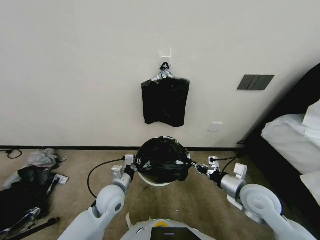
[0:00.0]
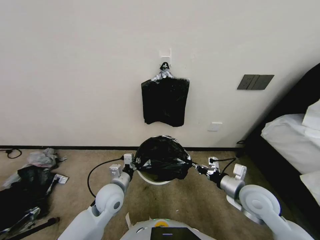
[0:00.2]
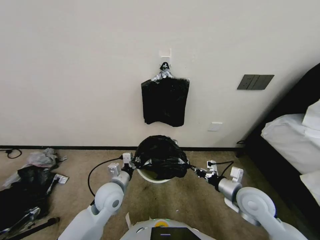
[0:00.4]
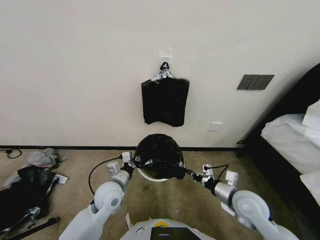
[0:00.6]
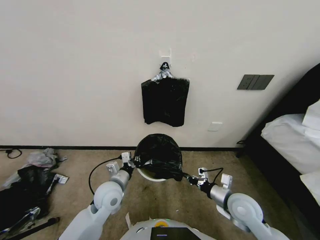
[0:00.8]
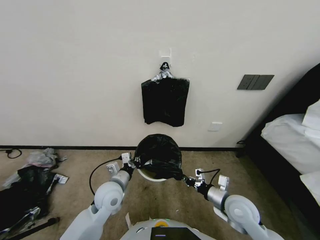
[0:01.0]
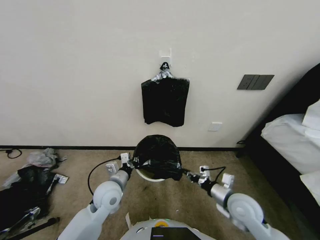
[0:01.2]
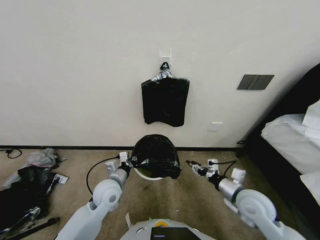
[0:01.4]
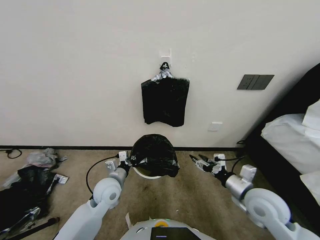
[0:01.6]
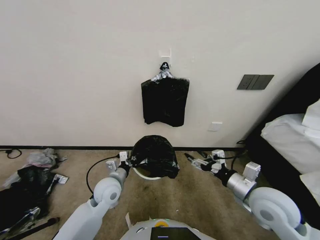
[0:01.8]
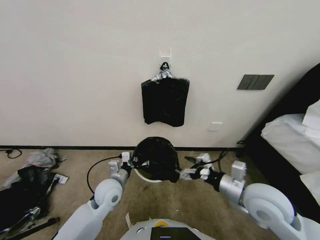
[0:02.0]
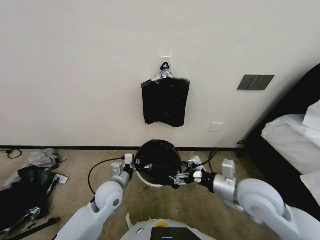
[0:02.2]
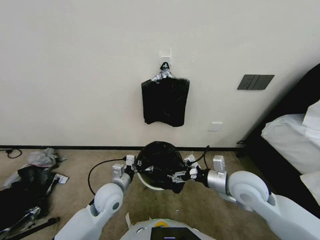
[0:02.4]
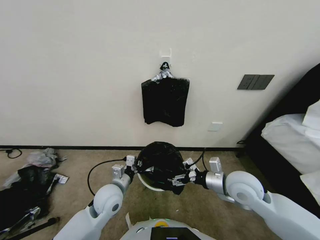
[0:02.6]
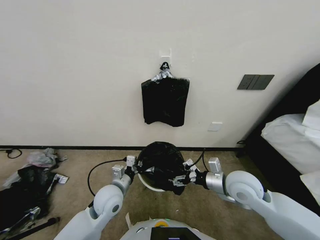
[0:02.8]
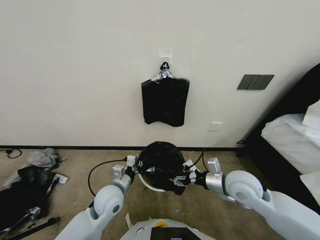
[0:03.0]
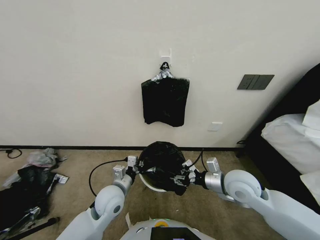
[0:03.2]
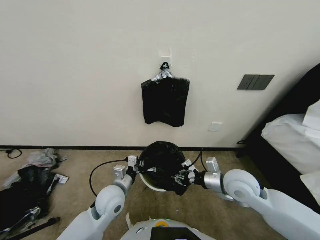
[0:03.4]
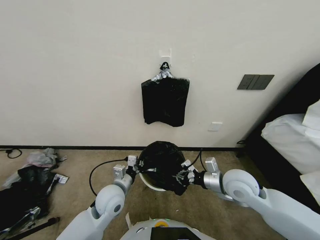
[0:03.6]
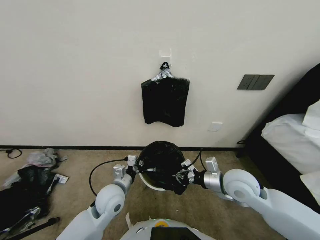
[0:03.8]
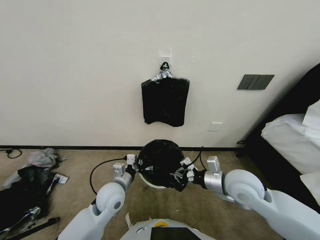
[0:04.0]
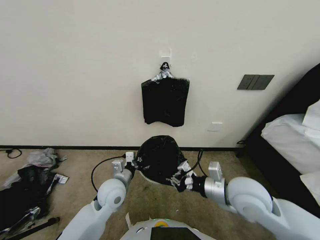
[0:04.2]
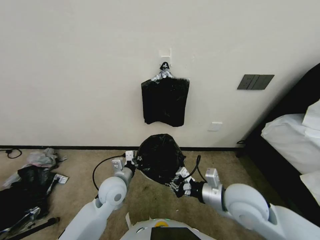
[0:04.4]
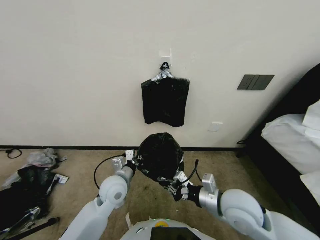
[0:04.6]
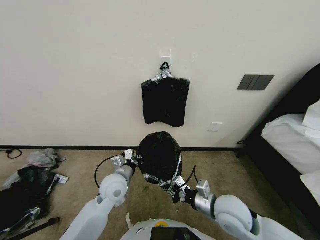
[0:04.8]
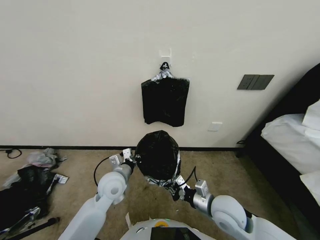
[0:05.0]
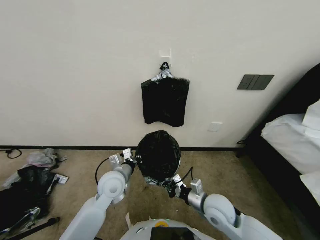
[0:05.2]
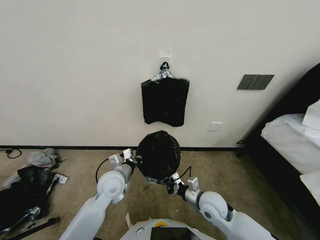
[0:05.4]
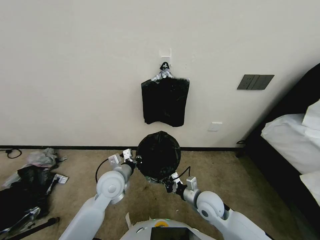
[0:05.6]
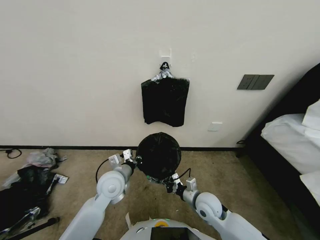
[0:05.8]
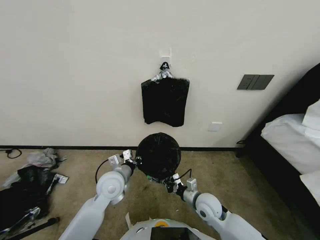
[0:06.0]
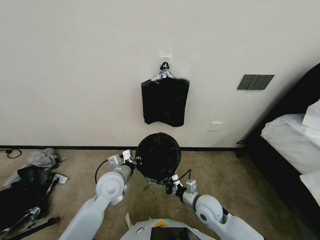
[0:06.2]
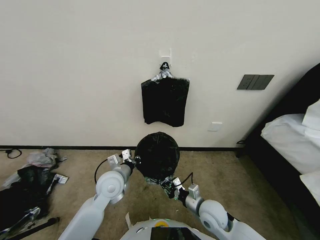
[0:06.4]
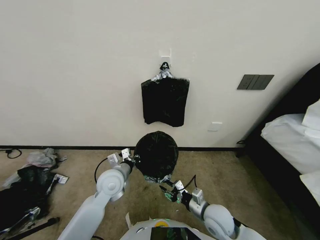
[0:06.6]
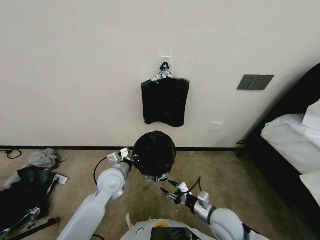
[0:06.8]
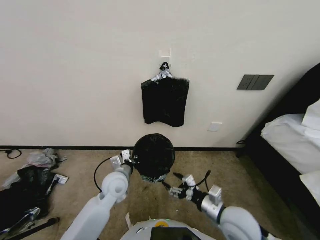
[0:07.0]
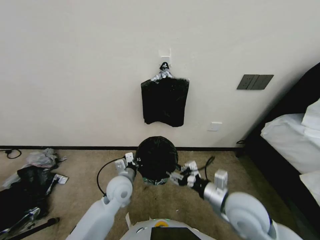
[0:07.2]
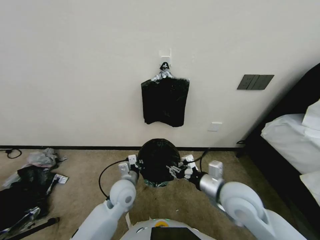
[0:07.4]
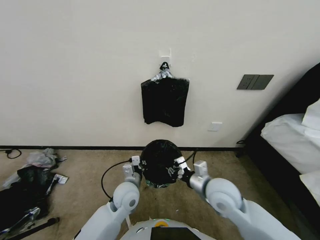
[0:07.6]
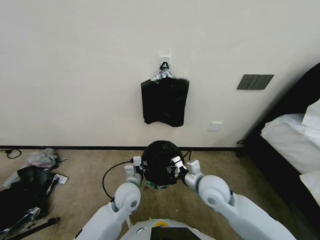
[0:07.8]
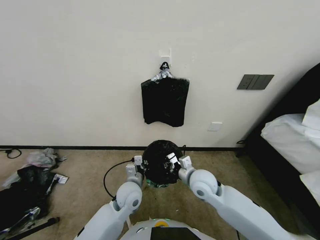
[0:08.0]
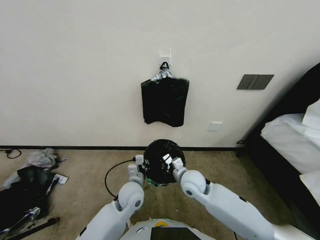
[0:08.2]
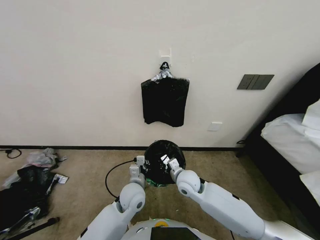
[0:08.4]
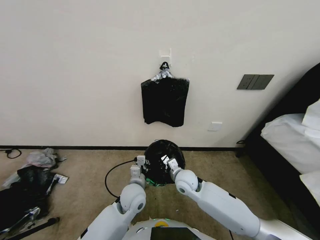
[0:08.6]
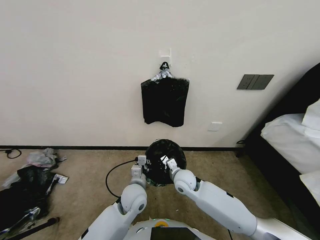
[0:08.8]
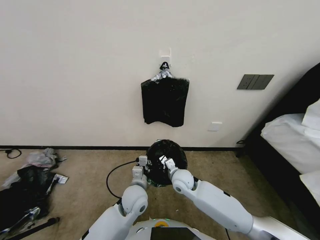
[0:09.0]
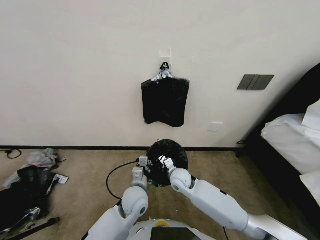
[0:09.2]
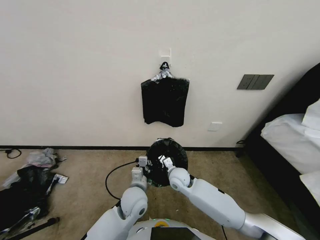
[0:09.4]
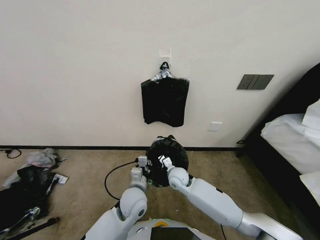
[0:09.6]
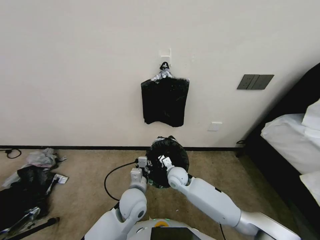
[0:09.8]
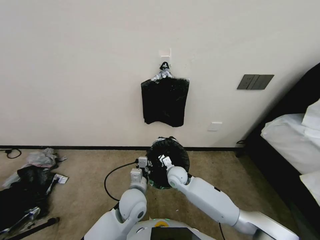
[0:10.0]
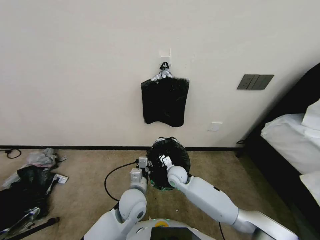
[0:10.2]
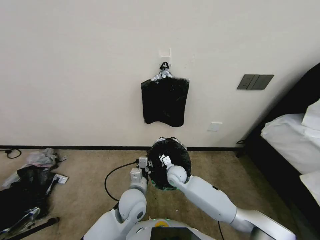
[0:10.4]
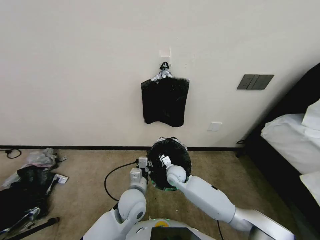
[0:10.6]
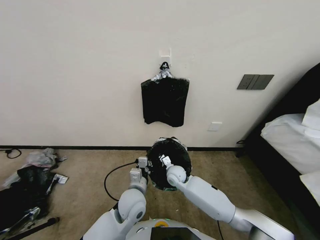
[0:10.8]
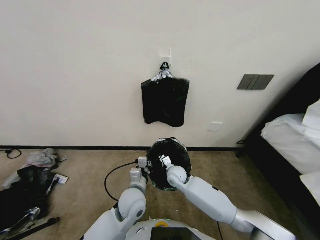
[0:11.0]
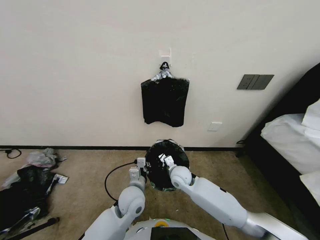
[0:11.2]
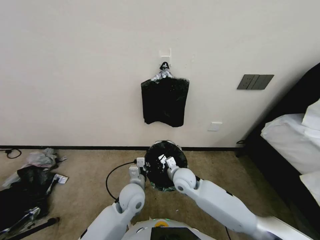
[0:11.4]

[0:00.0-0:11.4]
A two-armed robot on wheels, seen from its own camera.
Task of the whole recording: Place a trash bag onto the trash bin.
0:01.4 to 0:02.8: The right gripper shifts roughly 5 cm upward, and opens up.
0:02.8 to 0:04.2: The right gripper closes.
0:04.2 to 0:05.6: The right gripper moves downward, approximately 15 cm.
0:05.6 to 0:07.2: The right gripper shifts about 10 cm upward and backward, and opens.
0:07.2 to 0:08.6: The right gripper is displaced forward, to the left and downward by some 20 cm, and closes; the left gripper is displaced to the right by some 5 cm.
0:08.6 to 0:10.0: The right gripper changes place by about 5 cm.
0:10.0 to 0:11.4: The grippers stay close to where they were, moving slightly.

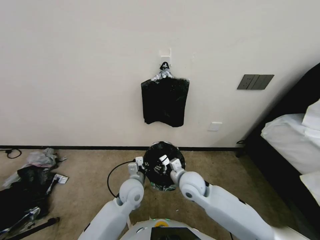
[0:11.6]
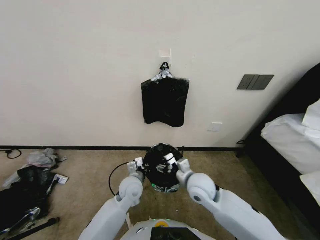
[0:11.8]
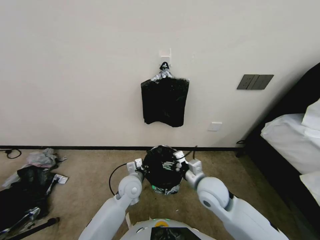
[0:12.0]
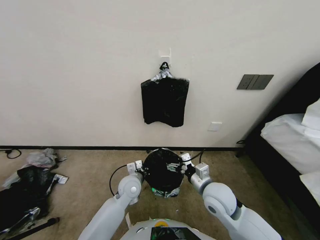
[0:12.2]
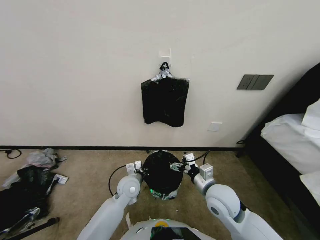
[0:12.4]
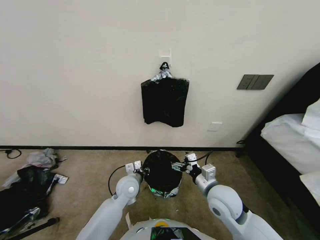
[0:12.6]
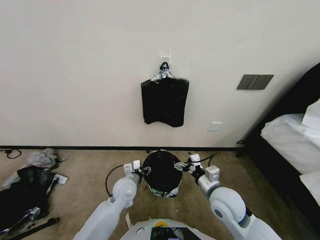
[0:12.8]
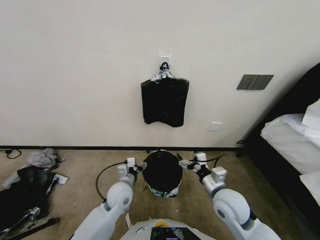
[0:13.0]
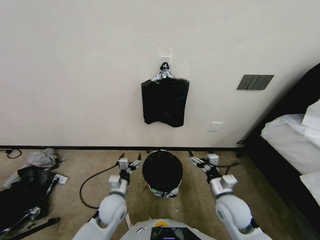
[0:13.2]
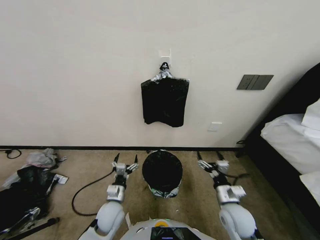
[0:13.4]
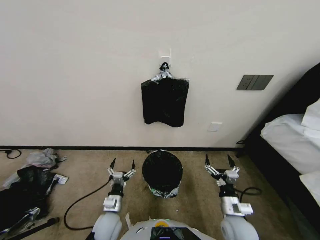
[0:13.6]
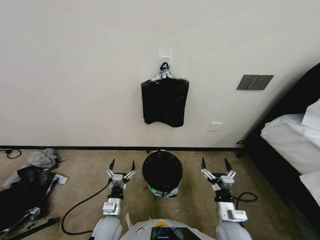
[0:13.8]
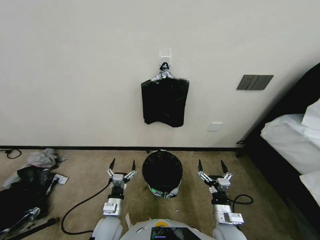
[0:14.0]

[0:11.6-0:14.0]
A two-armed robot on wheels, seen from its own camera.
Task of the whole recording: Place a trash bag onto the trash bin.
0:11.6 to 0:12.8: The left gripper opens, while the right gripper goes some 10 cm to the right and backward, and opens.
0:12.8 to 0:14.0: The left gripper heads backward, downward and to the left, covering approximately 15 cm, and opens. Meanwhile the right gripper is displaced downward and backward by roughly 15 cm.

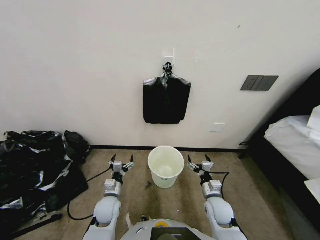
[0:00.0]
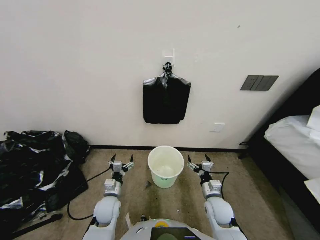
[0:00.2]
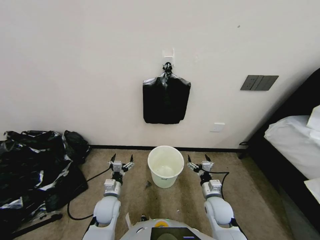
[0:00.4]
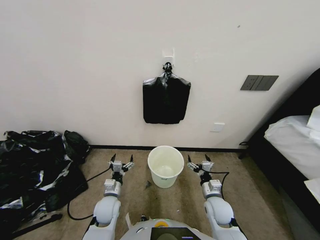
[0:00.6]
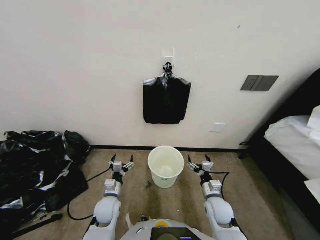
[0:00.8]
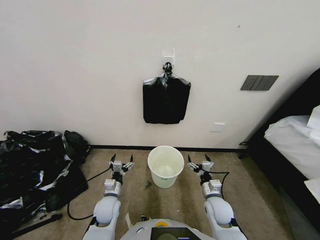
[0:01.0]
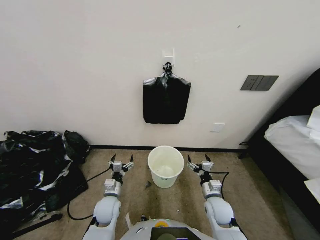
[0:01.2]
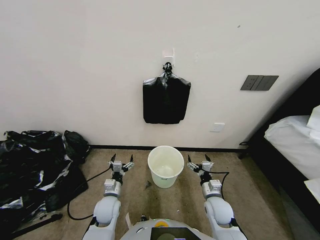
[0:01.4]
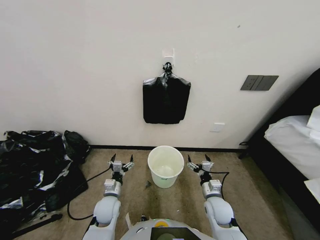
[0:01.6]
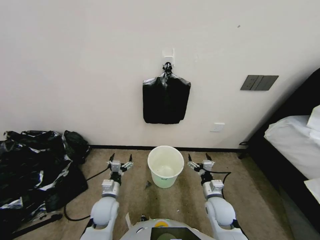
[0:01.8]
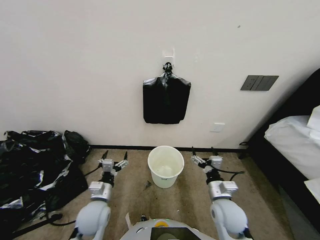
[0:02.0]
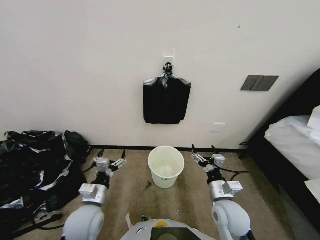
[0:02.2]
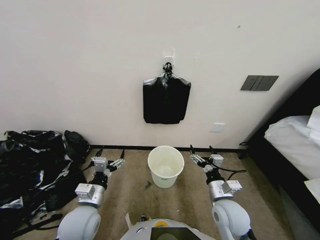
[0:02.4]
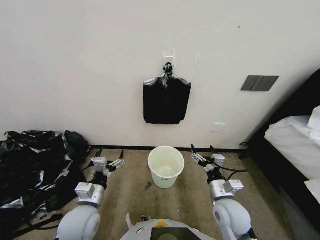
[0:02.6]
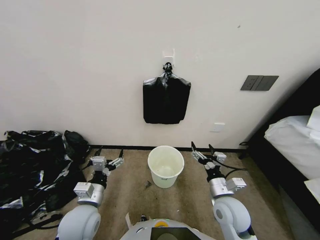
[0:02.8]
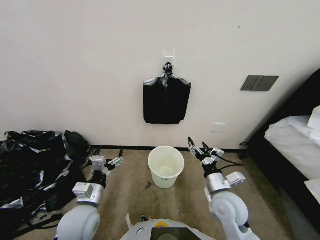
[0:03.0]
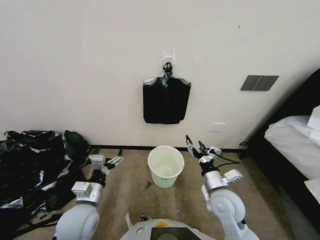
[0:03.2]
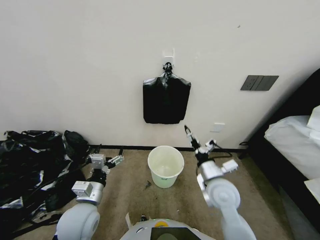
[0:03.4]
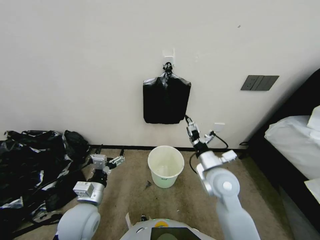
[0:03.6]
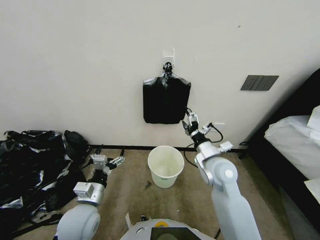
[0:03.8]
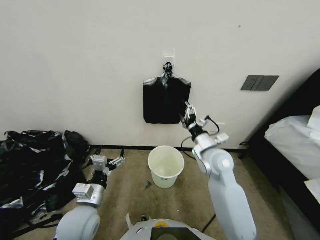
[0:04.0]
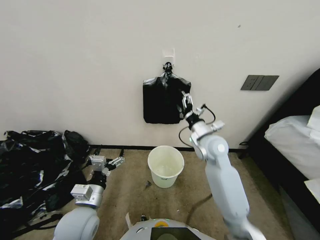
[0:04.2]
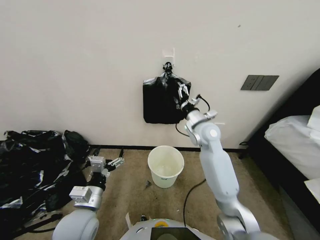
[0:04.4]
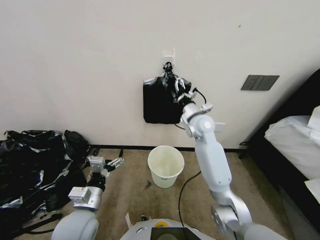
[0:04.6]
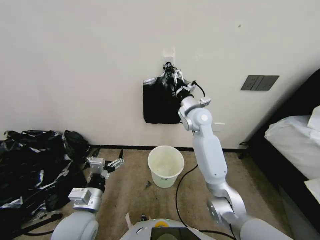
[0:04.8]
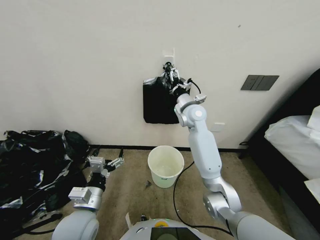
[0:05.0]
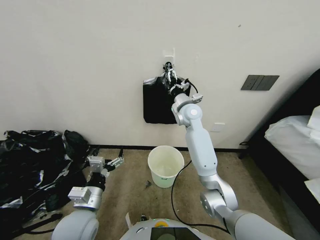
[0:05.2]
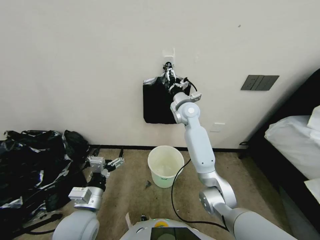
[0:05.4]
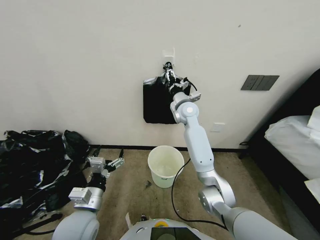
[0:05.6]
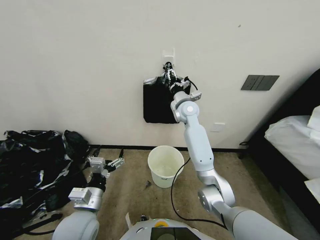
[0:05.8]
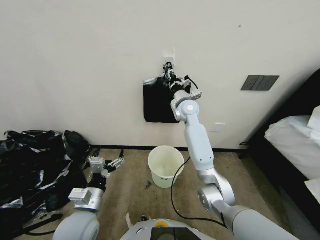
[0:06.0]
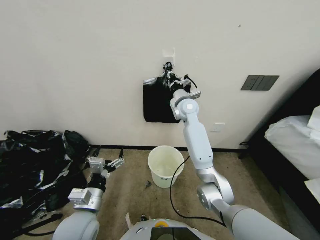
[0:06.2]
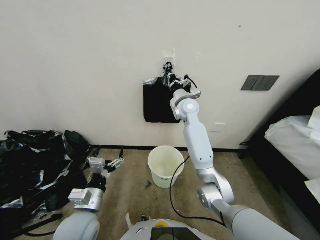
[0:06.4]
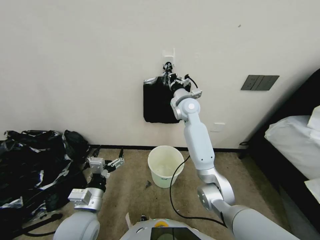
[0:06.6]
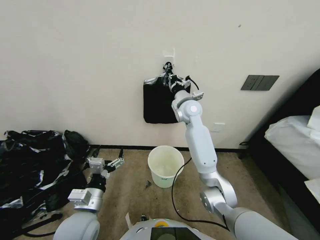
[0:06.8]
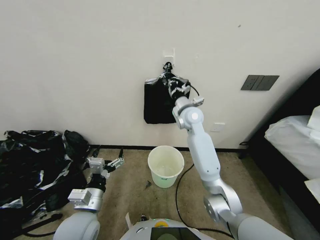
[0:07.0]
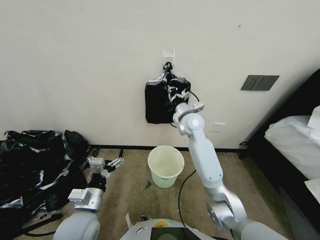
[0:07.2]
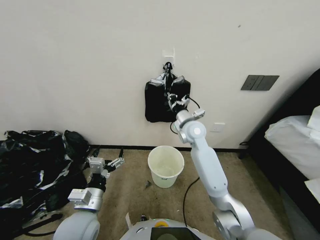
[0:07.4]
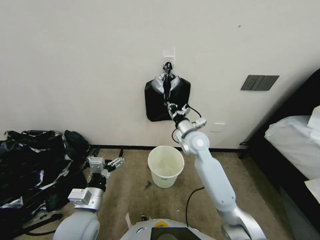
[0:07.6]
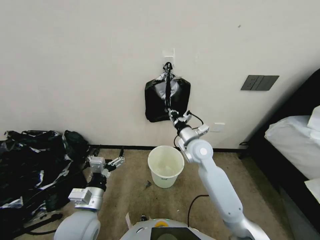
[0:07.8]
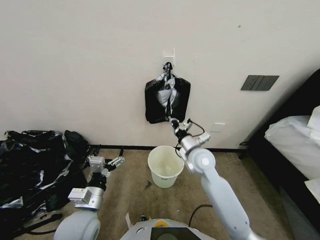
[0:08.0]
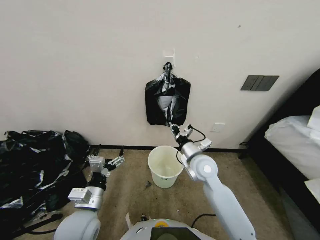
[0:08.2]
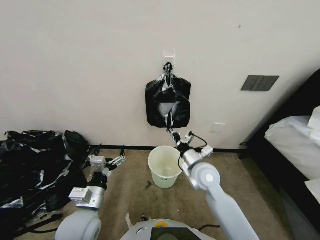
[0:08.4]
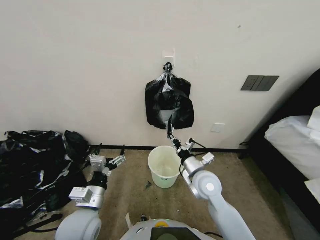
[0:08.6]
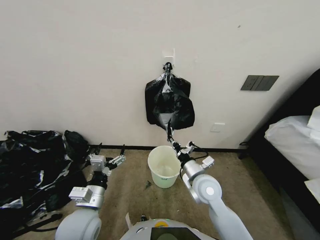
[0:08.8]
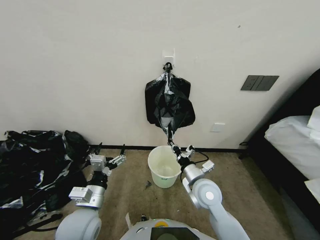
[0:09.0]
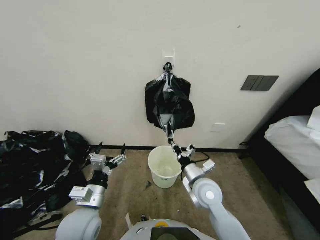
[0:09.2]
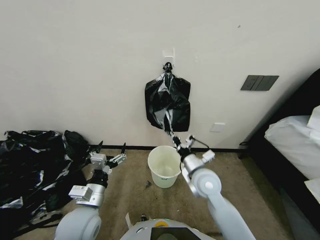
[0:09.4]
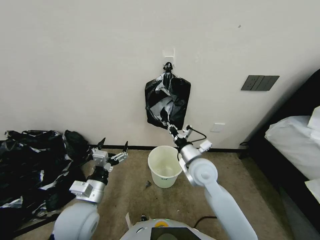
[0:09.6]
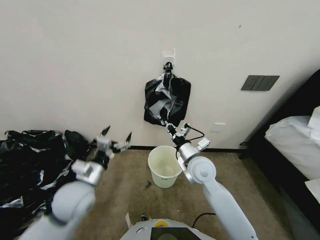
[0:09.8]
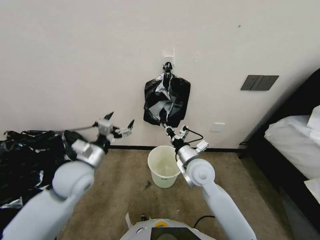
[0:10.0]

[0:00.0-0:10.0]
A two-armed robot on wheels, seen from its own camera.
Task of the whole recording: Place a trash bag onto the trash bin.
0:01.4 to 0:02.8: The right gripper shifts some 10 cm upward. Meanwhile the left gripper moves upward and backward, approximately 15 cm.
0:02.8 to 0:04.2: The right gripper is displaced forward and upward by approximately 20 cm.
0:04.2 to 0:05.8: The right gripper moves forward and to the left, some 20 cm.
0:05.8 to 0:07.2: The right gripper ends up about 5 cm from where it was, and closes.
0:07.2 to 0:08.6: The right gripper travels backward and downward by approximately 25 cm.
0:08.6 to 0:10.0: The left gripper shifts roughly 10 cm forward and upward.
